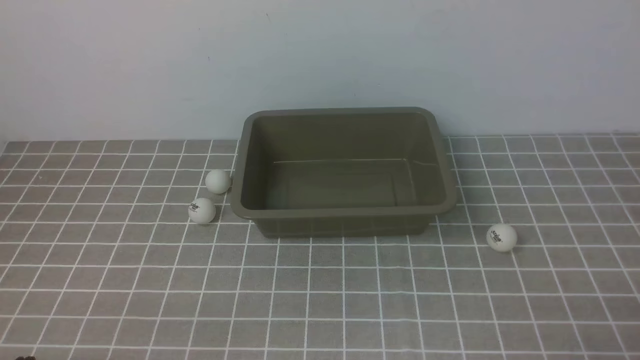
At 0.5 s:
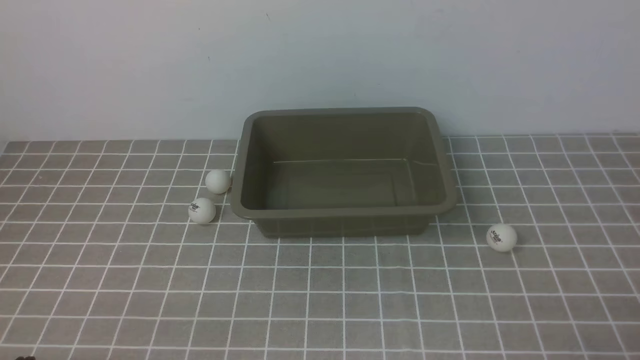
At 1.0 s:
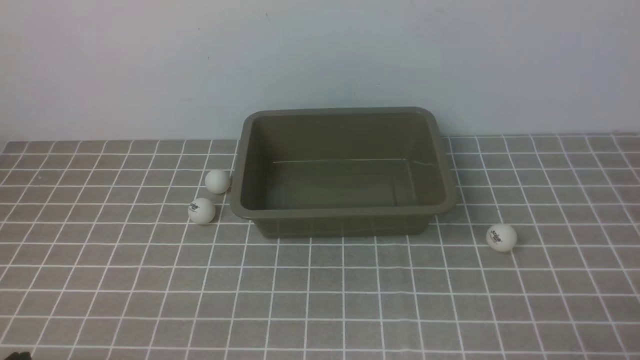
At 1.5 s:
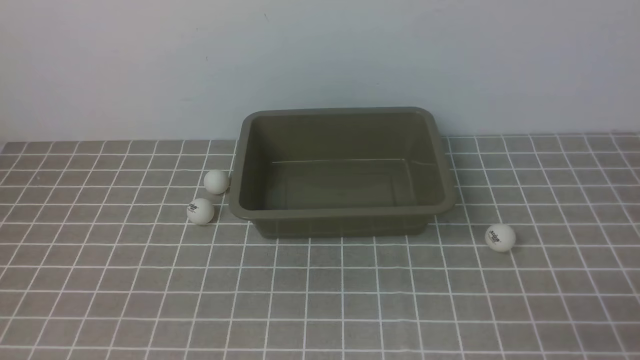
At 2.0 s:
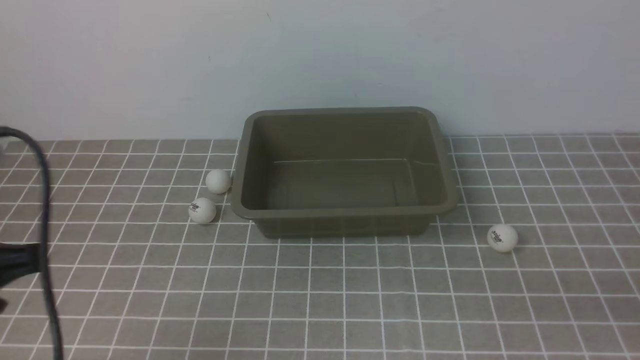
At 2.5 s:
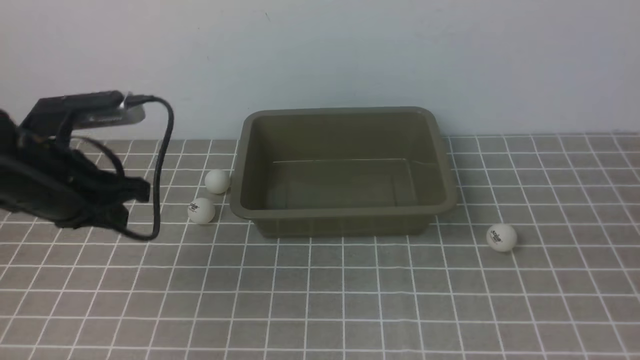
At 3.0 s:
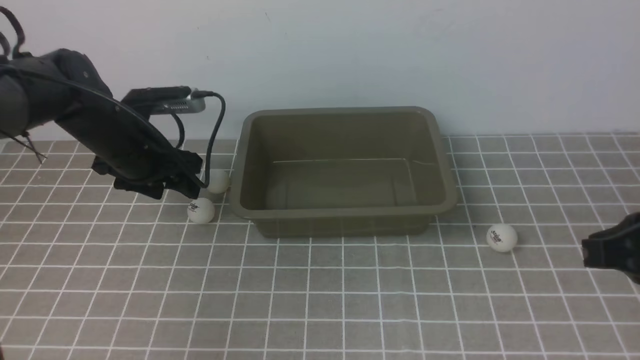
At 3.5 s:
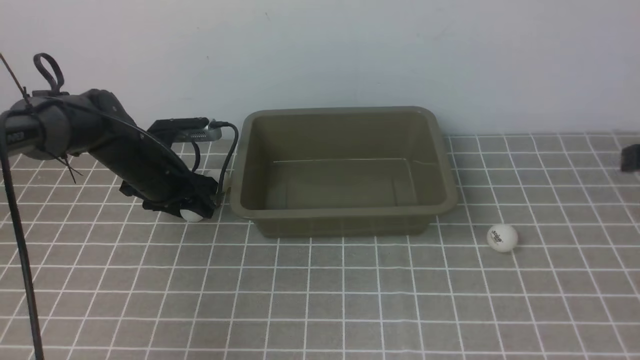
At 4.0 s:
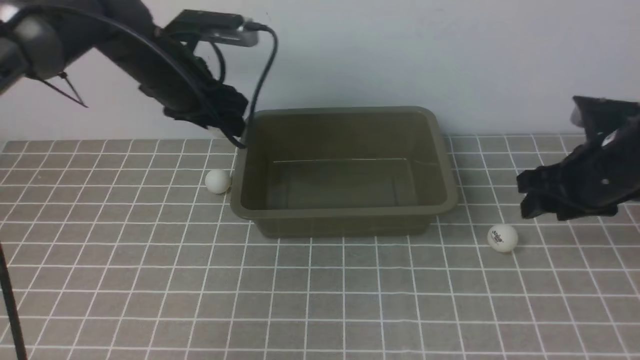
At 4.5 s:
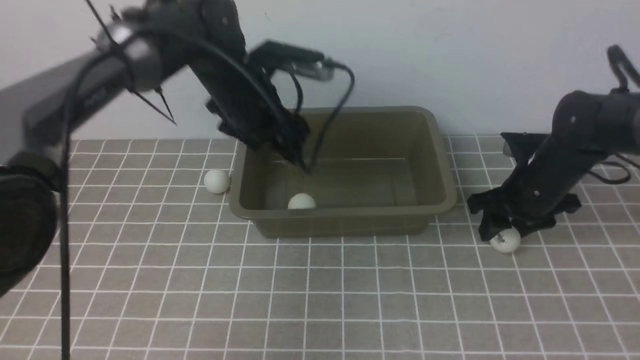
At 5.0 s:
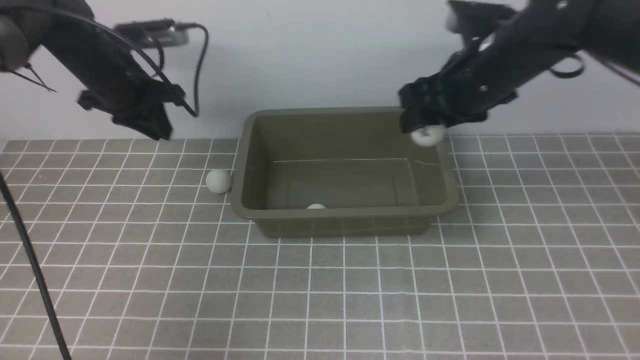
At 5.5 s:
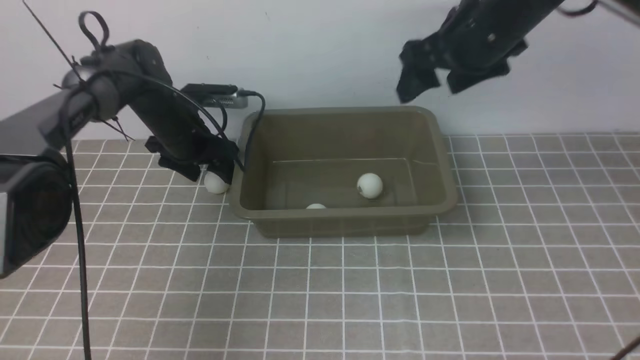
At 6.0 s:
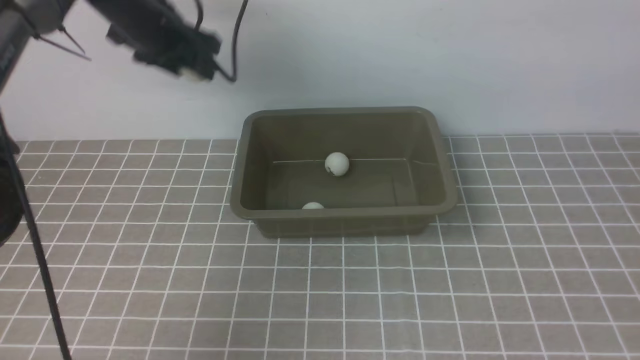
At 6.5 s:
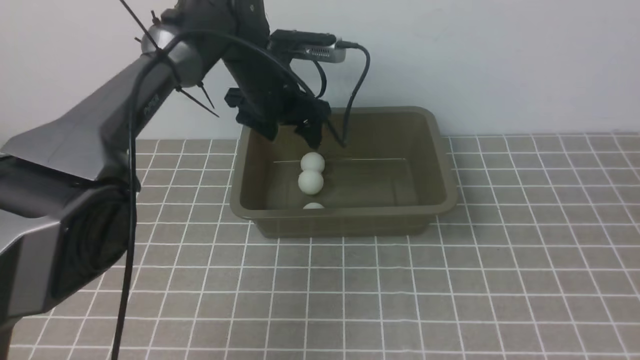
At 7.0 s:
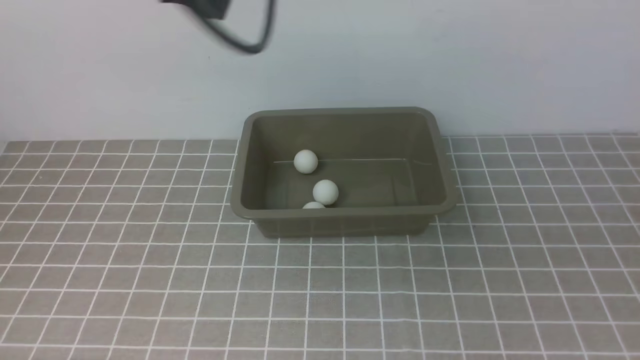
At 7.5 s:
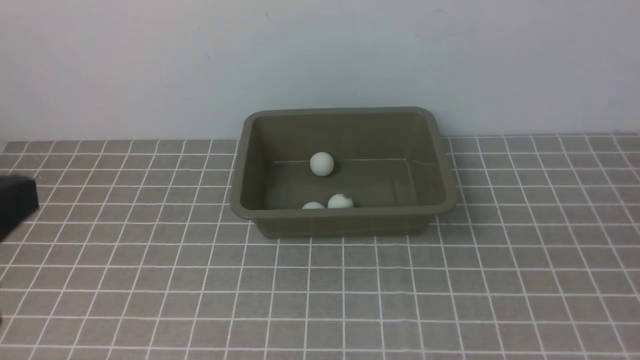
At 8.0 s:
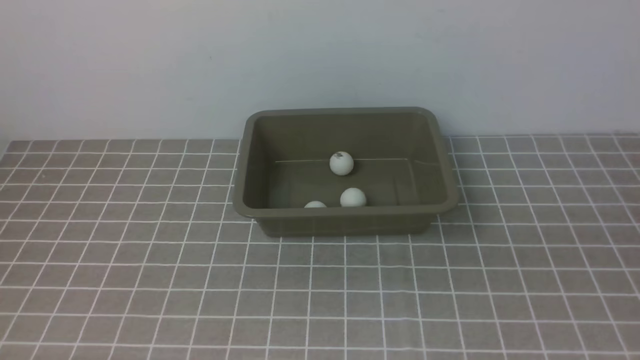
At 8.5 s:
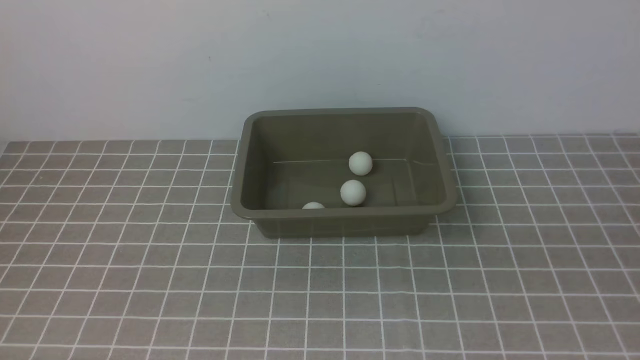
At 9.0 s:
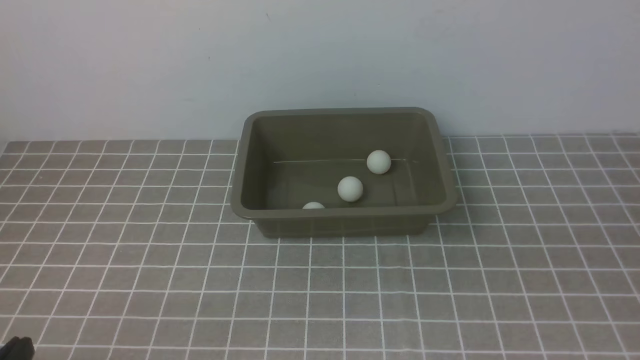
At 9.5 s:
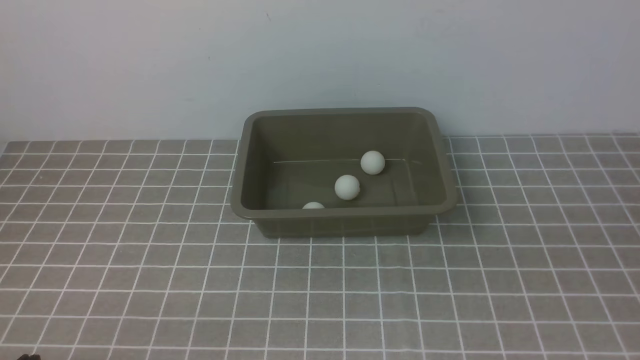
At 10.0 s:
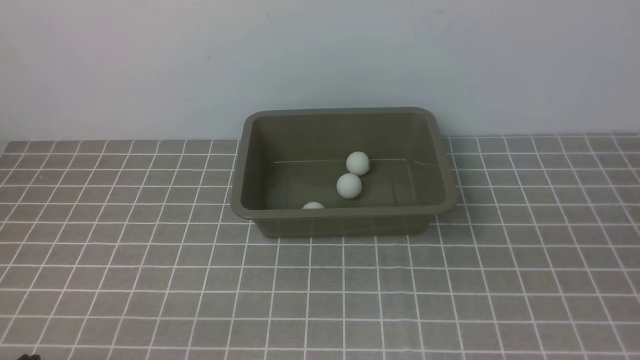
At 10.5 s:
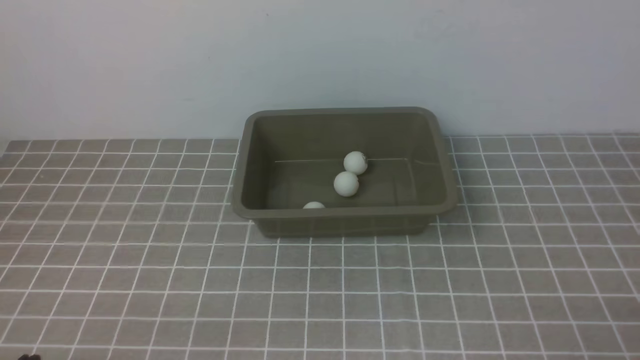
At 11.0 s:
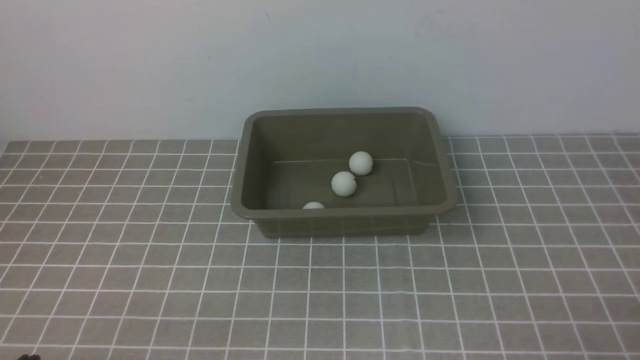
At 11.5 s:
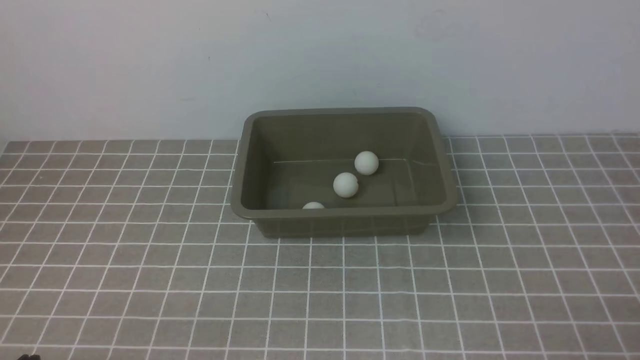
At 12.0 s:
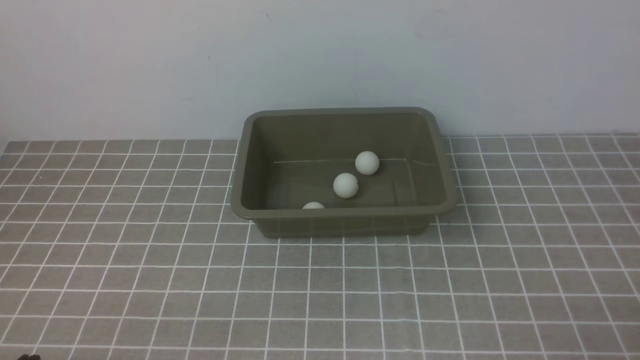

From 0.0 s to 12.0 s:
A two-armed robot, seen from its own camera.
Step, from 0.0 s to 3.5 s: use the left arm to clamp the table tennis ball closest to it.
From 0.0 s to 2.0 s: The left gripper is displaced upward and forward by roughly 15 cm.
From 2.0 s to 4.0 s: Both grippers move forward, roughly 30 cm. The right gripper opens, while the left gripper opens up.
From 4.0 s to 6.0 s: The left gripper travels downward and back again, about 10 cm each way, and closes and opens again. The right gripper travels upward and backward by approximately 30 cm, and closes up.
From 6.0 s to 8.0 s: The left gripper heads backward, covering about 50 cm, and closes up. The right gripper heads backward and downward, covering some 20 cm.
From 8.0 s to 10.0 s: The left gripper is displaced downward by about 15 cm.
